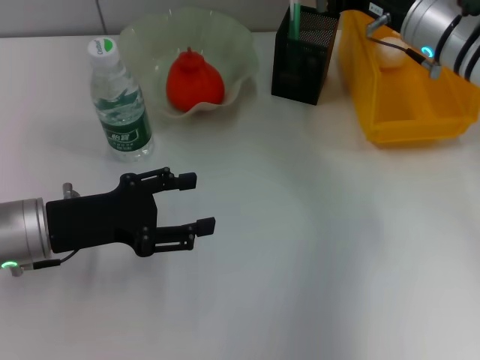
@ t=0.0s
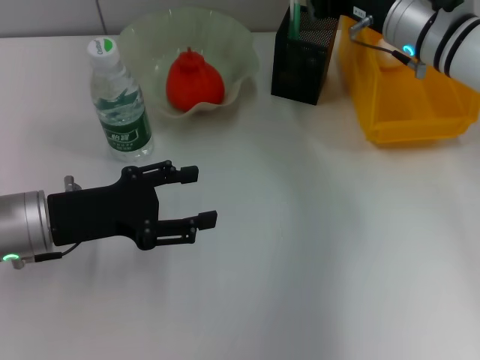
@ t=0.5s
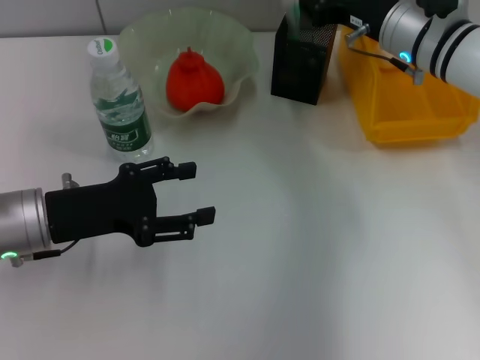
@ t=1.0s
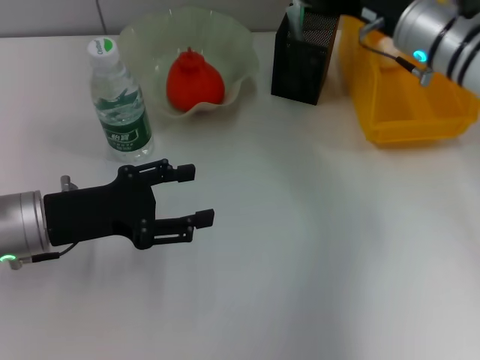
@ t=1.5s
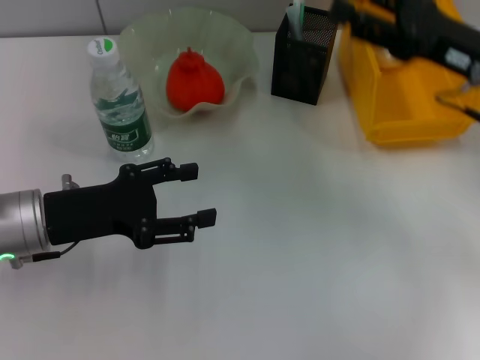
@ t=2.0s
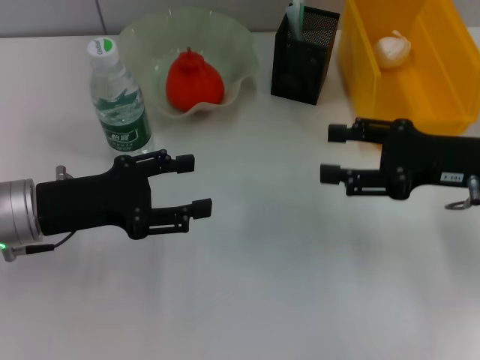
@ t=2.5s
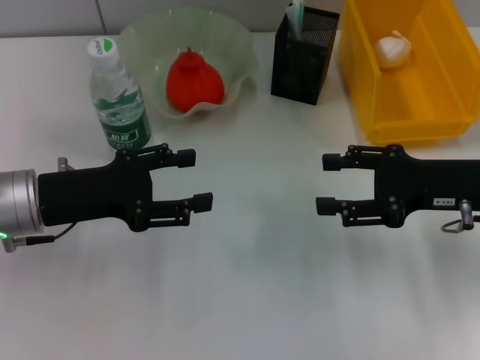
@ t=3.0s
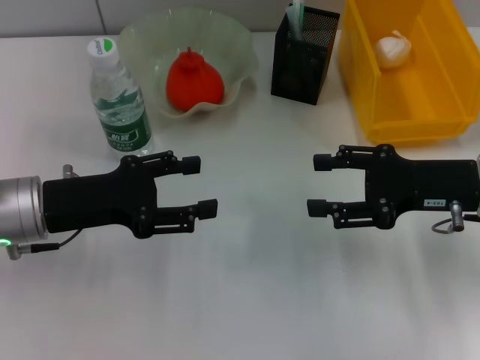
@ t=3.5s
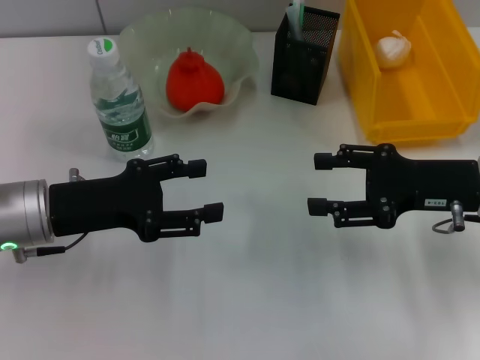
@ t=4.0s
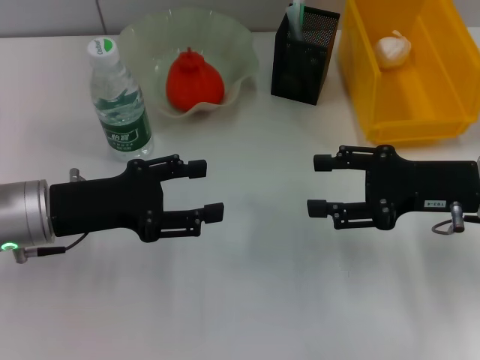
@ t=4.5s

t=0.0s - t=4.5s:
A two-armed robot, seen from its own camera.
t=0.0s - t=2.0s: The right gripper moves backward and to the right, about 10 cm, and opens up.
t=2.0s - t=4.5s: The right gripper is displaced downward by some 5 cm.
